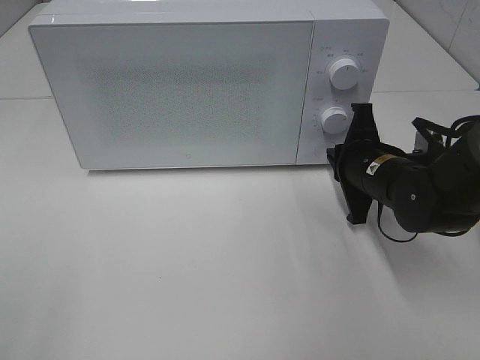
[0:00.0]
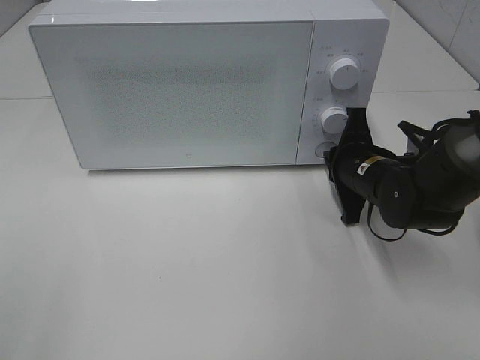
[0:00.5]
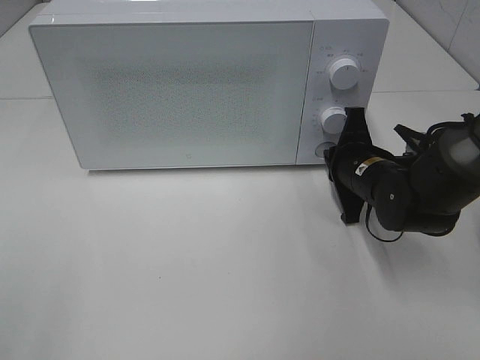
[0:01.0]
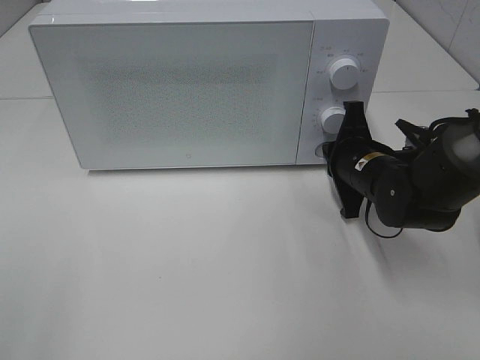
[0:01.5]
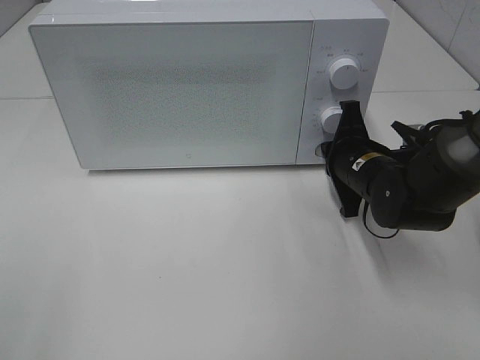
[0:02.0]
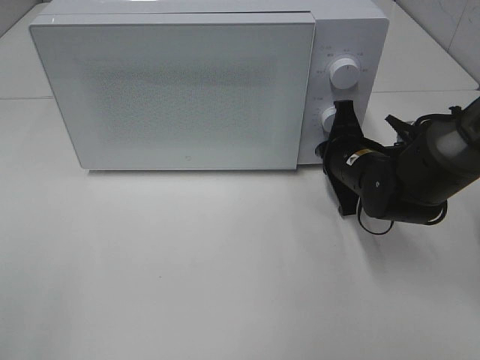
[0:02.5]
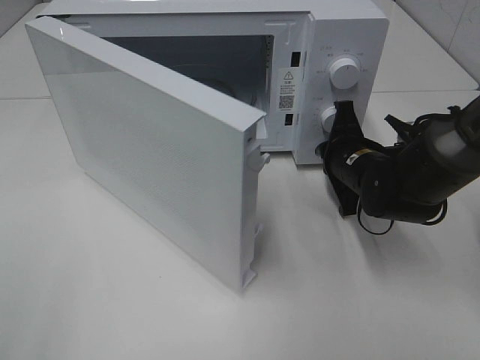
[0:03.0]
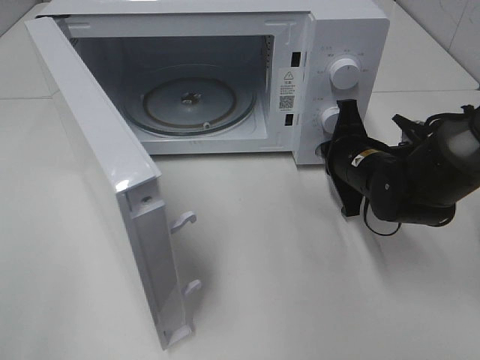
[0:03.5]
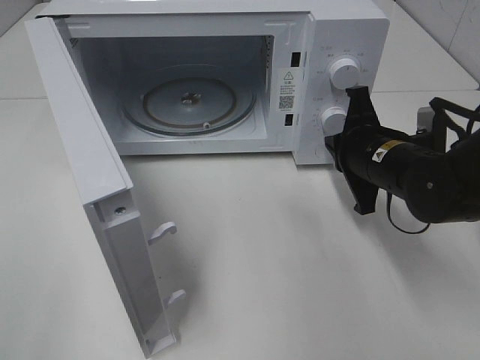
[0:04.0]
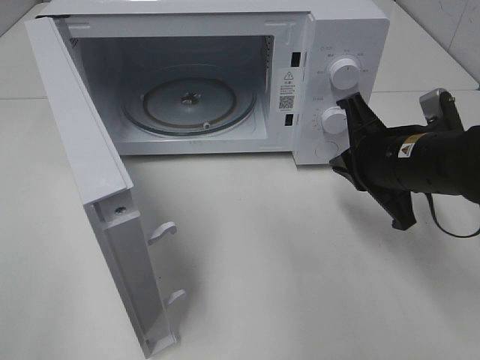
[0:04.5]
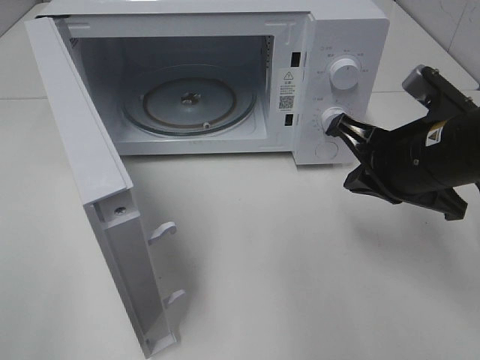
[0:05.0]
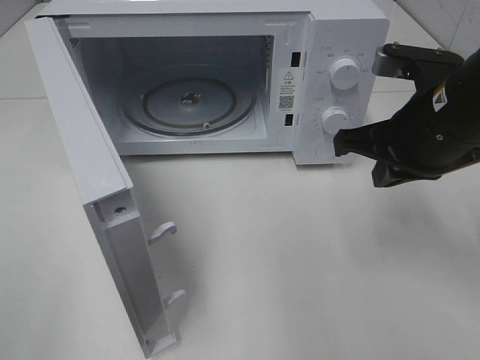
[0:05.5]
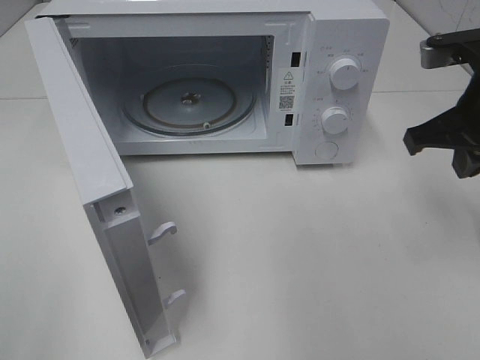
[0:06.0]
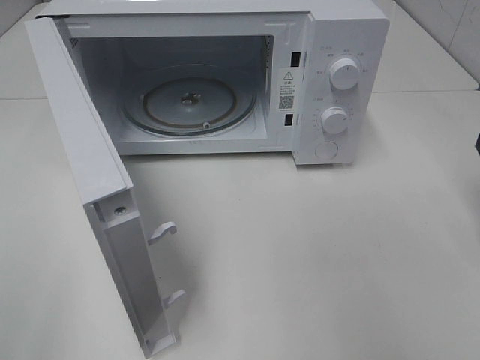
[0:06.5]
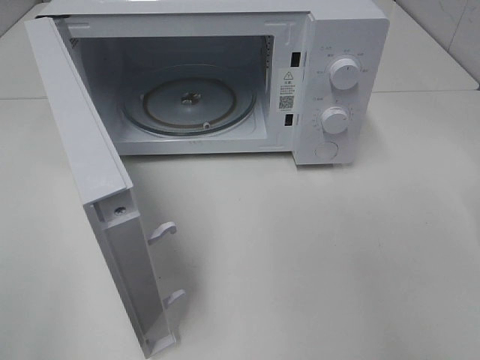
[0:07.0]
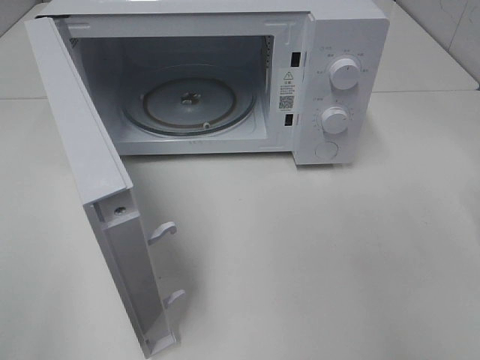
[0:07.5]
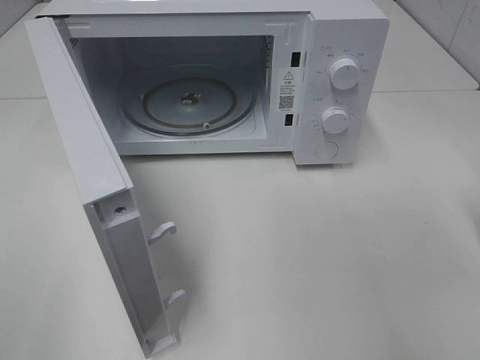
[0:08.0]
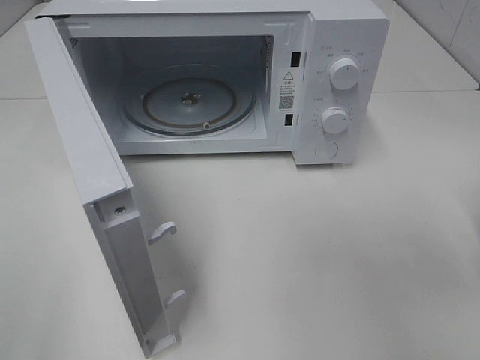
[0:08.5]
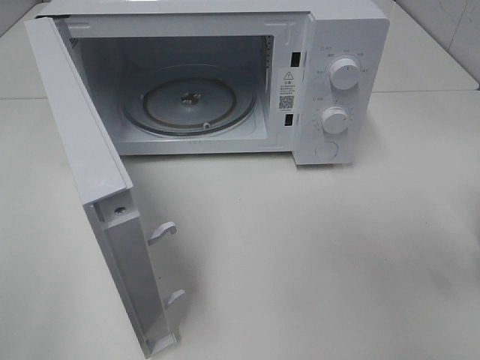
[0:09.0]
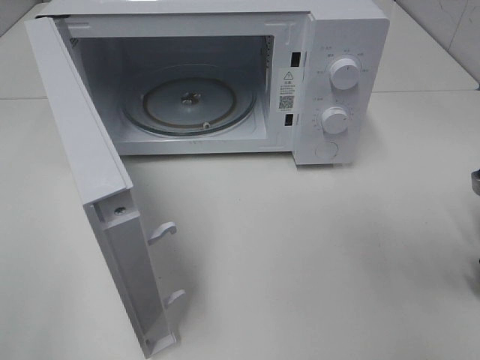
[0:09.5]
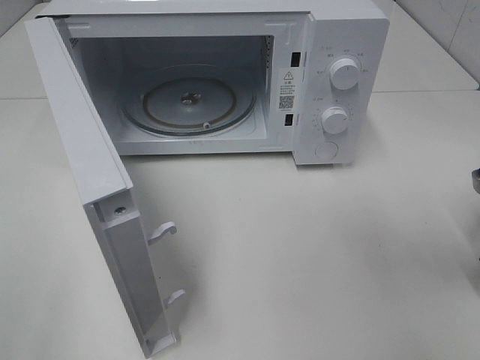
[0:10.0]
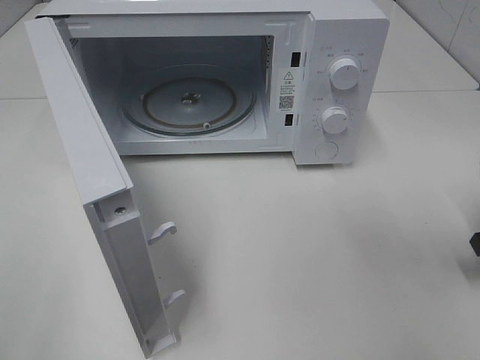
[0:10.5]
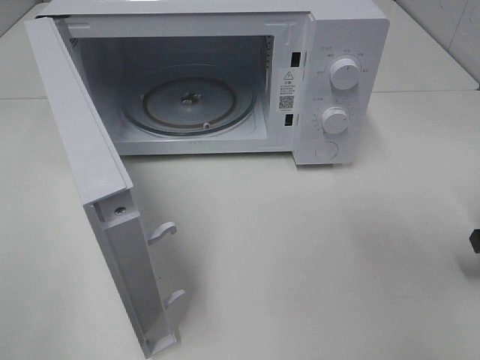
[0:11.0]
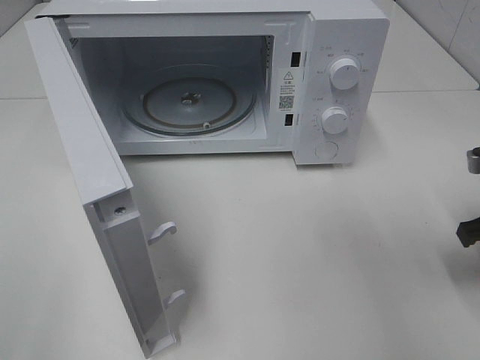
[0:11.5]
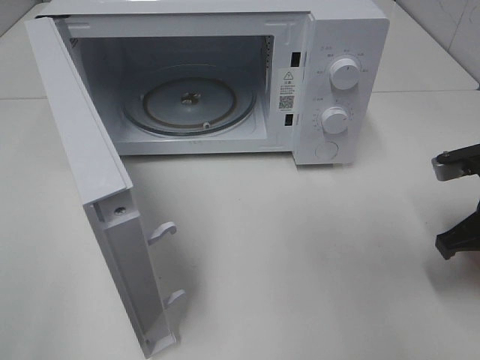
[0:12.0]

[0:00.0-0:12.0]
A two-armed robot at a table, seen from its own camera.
Task of the whole recording: Heat the burger.
Step, 0.0 to 3.5 s: Right hand: press the switch.
Step, 4.0 to 10.5 s: Right hand: grab the plate with the hamburger.
0.0 to 2.0 s: The grippers move only a little.
4.0 to 6.0 s: The right gripper is displaced upward and to the right by some 15 cm.
6.0 to 8.0 s: The right gripper heads to the right, covering about 10 cm, and opens up.
10.0 to 12.0 s: The right gripper is displaced to the left by about 5 cm.

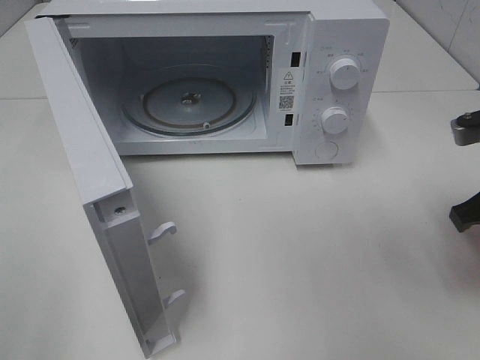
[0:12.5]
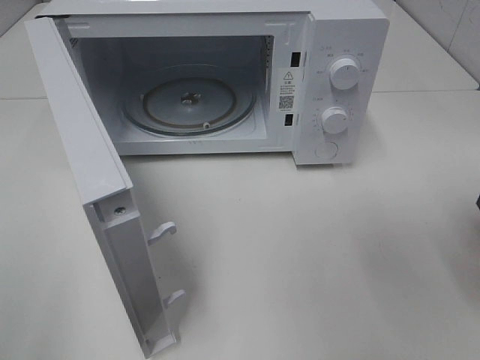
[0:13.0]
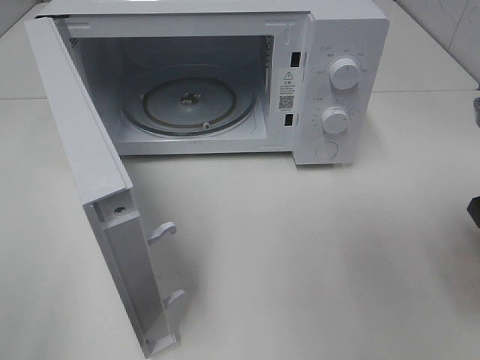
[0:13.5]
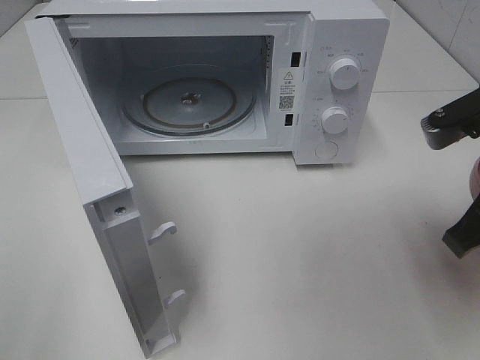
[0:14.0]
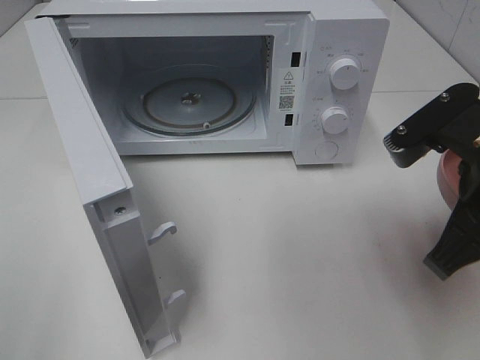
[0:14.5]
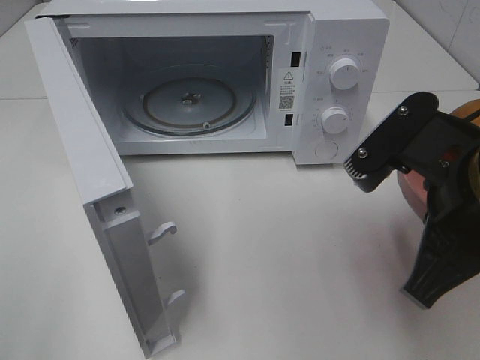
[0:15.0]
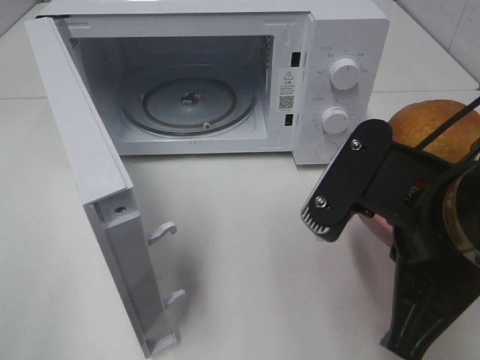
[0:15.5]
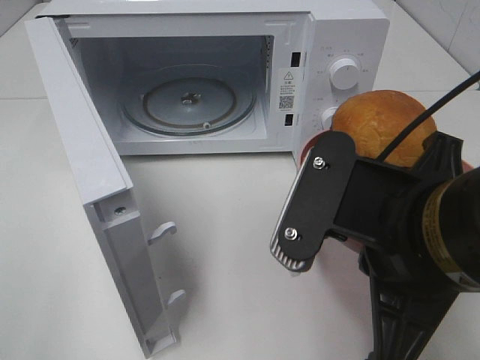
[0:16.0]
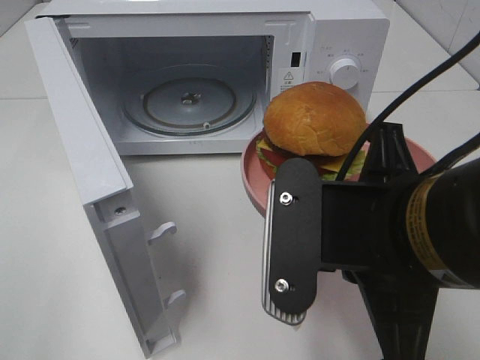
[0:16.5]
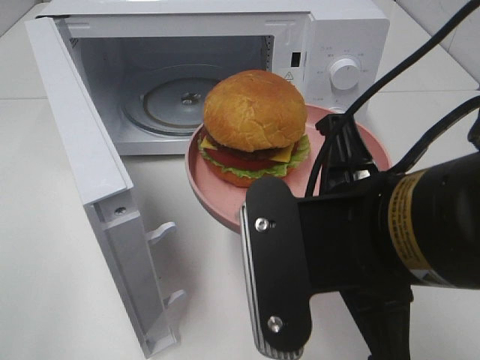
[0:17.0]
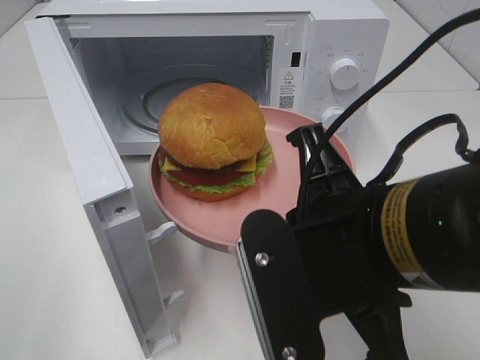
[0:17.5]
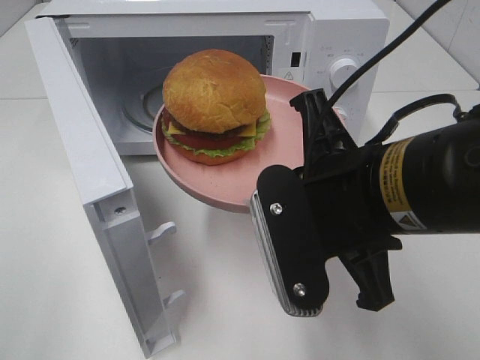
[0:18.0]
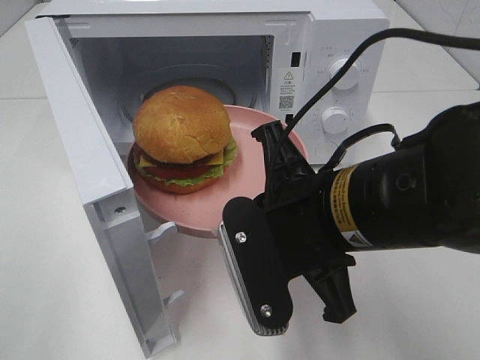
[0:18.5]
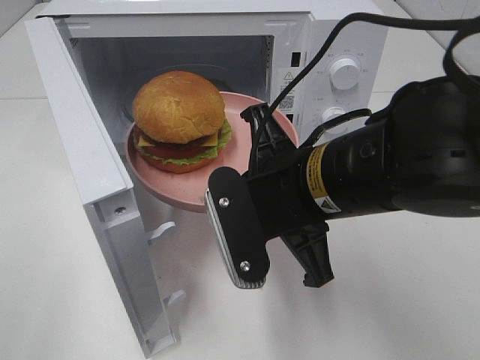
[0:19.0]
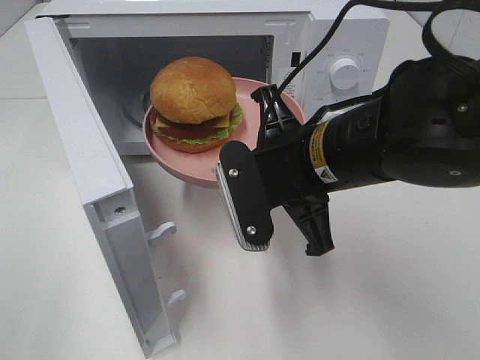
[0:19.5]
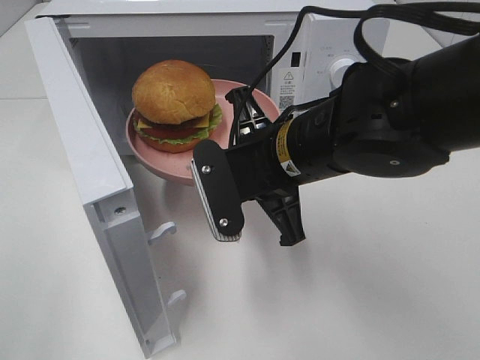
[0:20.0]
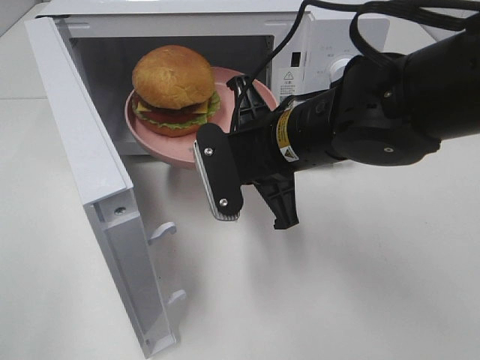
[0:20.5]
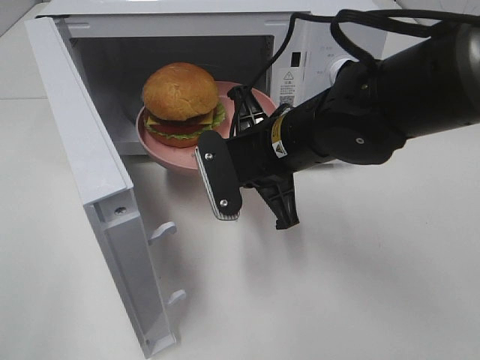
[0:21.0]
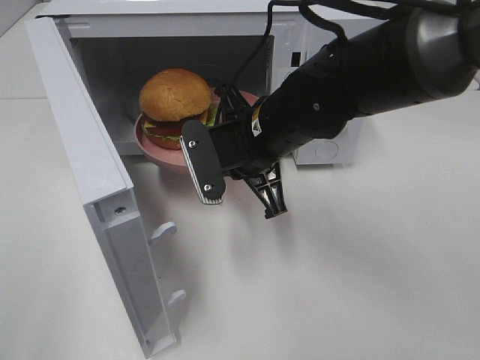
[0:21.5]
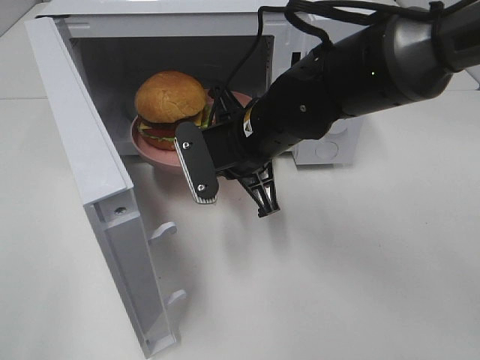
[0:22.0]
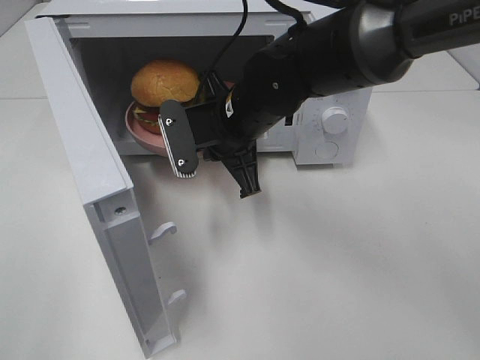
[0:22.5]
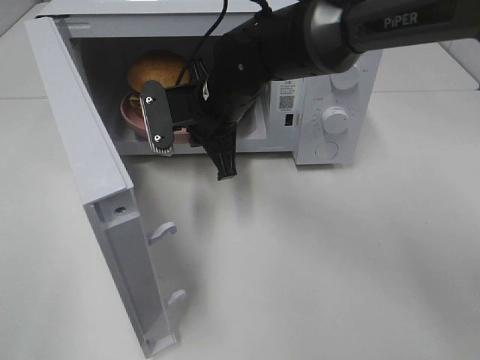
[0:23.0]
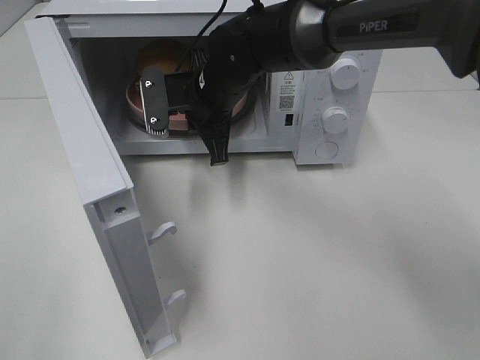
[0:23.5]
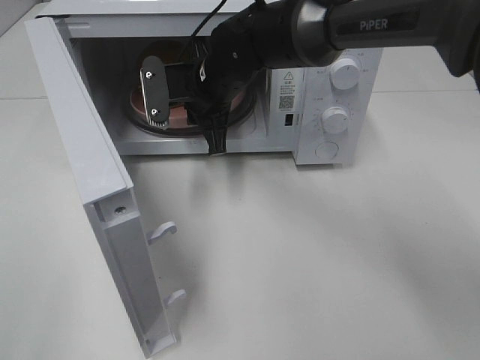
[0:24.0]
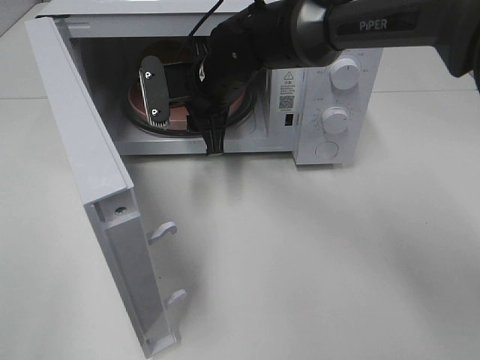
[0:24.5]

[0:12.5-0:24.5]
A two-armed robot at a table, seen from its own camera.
Task of the whole recording: Heat the burger.
Step, 12.5 to 24.0 s: Right hand: place the plate in the microwave.
12.5 to 14.5 s: The right gripper travels to the left and backward by some 10 cm.
14.5 to 16.5 s: The right gripper goes some 10 cm to the left and backward.
16.5 to 18.5 s: The right gripper changes place by roughly 5 cm.
18.5 to 20.5 s: The right gripper moves forward, approximately 10 cm.
20.5 to 22.5 s: The right gripper moves forward, roughly 5 cm.
22.5 to 24.5 s: The right gripper moves forward, approximately 5 cm, and opens.

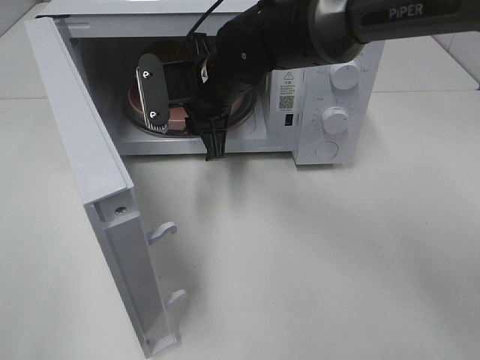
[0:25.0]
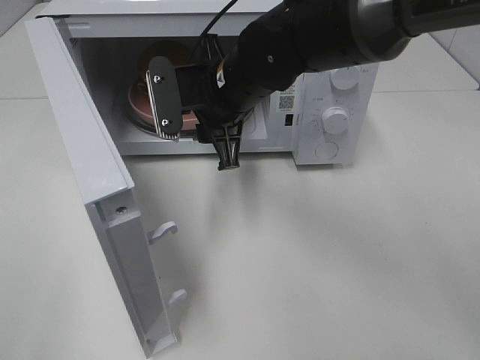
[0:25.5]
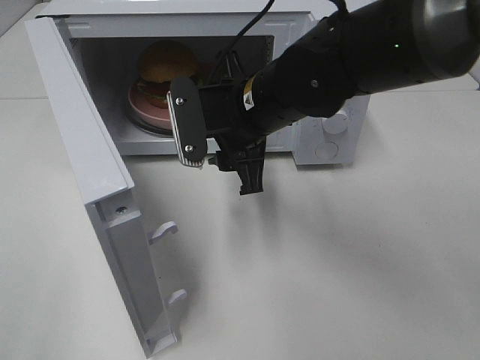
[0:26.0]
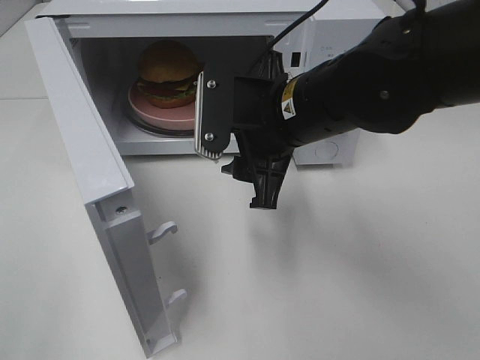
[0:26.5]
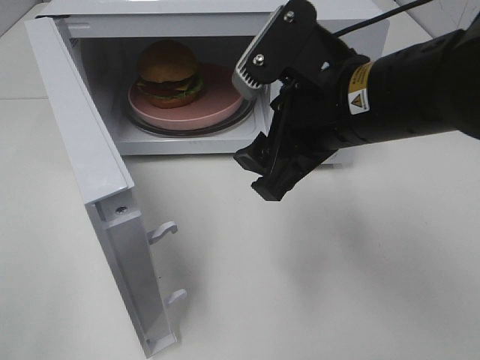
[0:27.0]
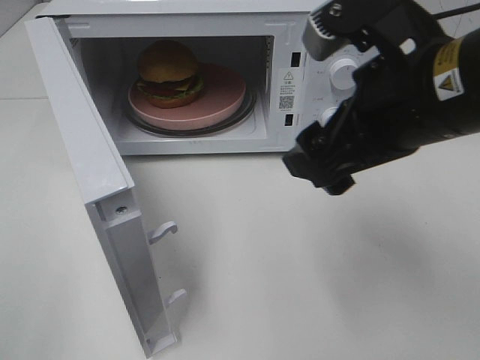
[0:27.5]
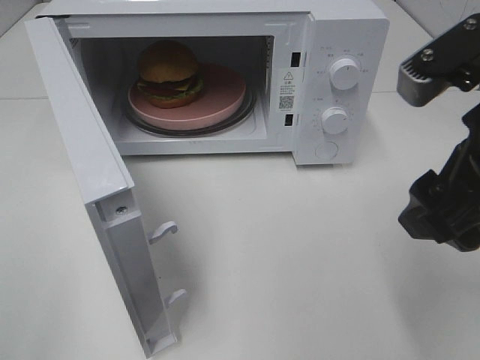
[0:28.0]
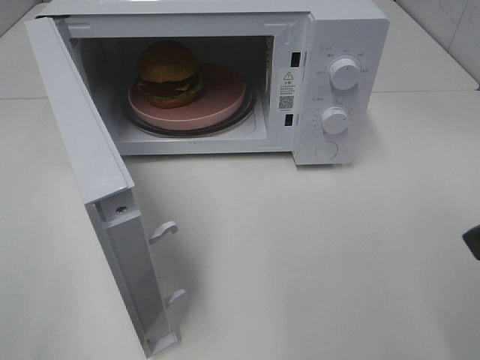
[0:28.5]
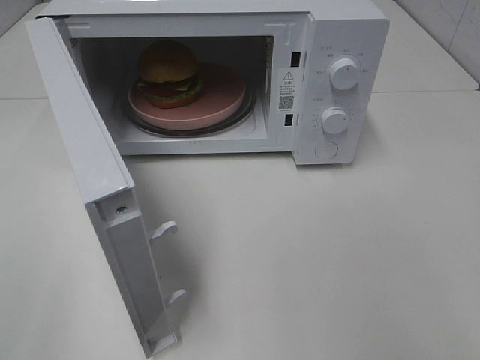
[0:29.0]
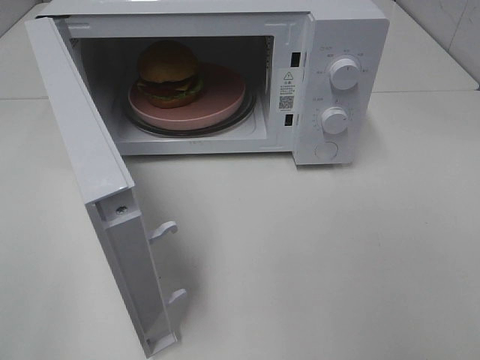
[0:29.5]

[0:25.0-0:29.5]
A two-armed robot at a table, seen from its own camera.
Task of the whole recording: Heat the burger.
25.0 to 27.0 s: The right gripper travels backward, to the right and upward by about 20 cm.
27.0 to 29.5 s: The right gripper is displaced backward and to the right by about 30 cm.
